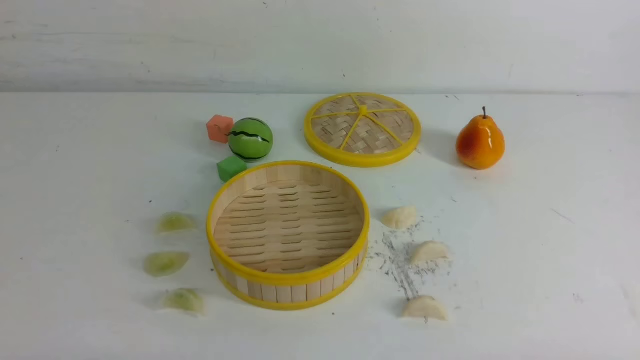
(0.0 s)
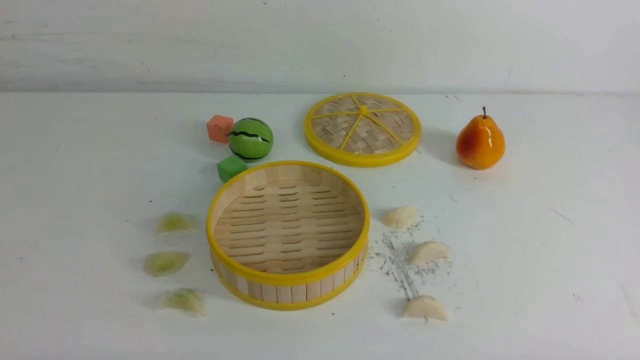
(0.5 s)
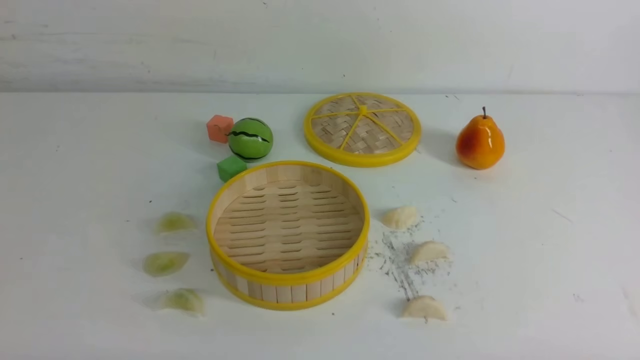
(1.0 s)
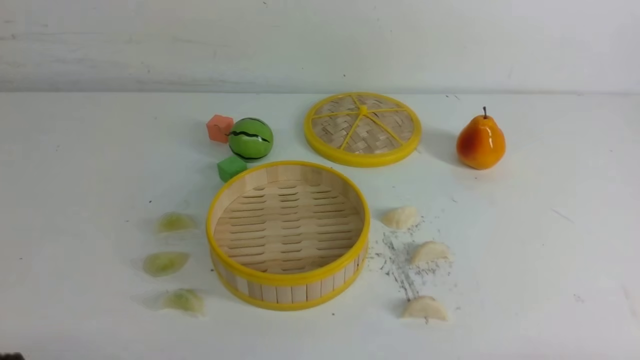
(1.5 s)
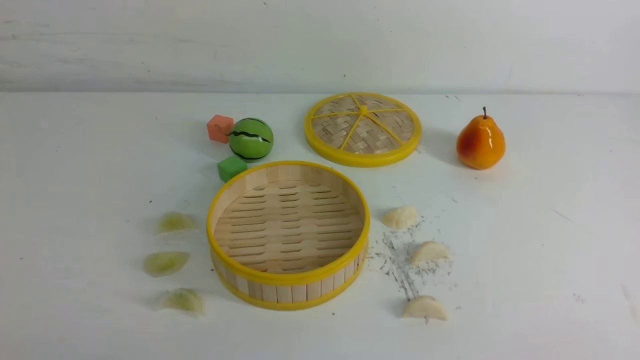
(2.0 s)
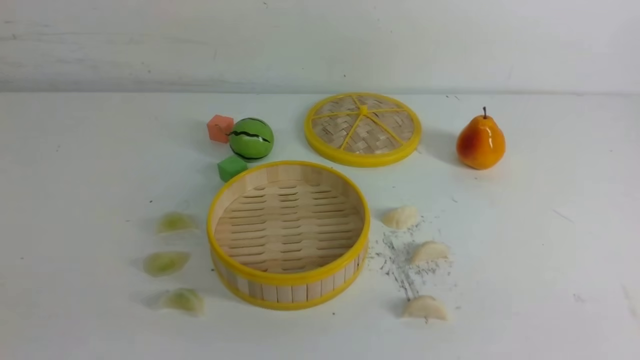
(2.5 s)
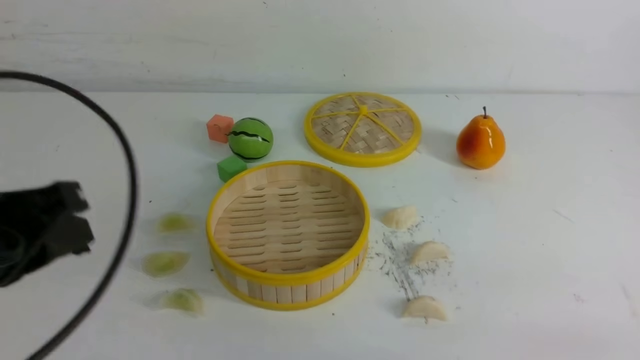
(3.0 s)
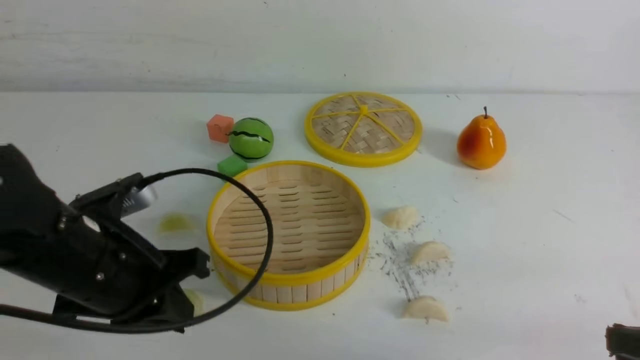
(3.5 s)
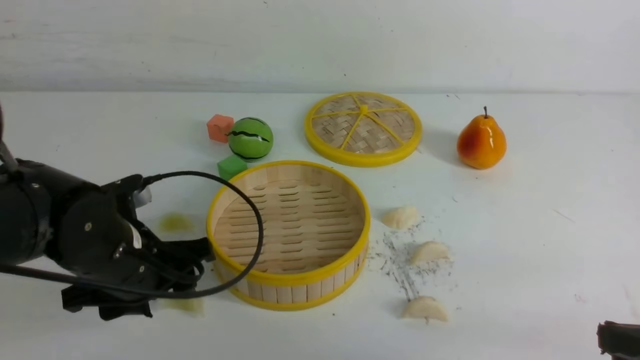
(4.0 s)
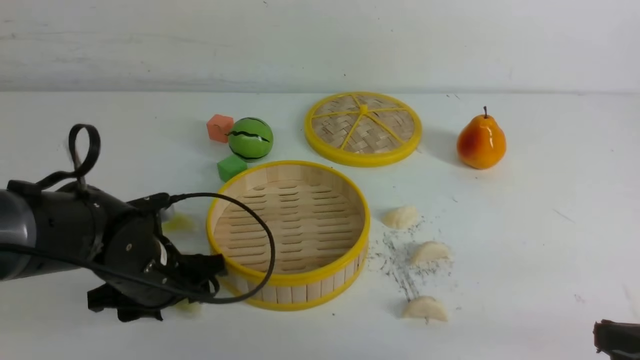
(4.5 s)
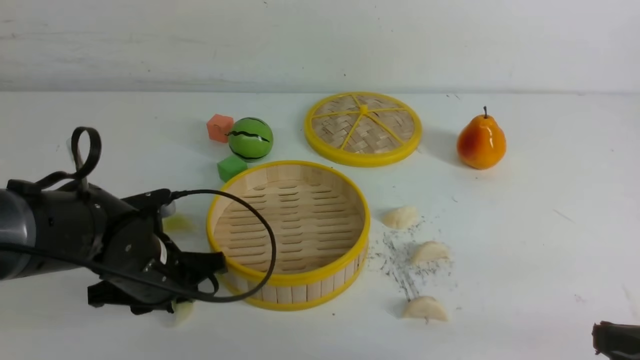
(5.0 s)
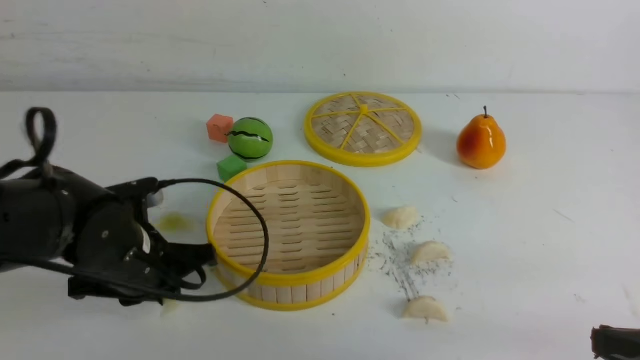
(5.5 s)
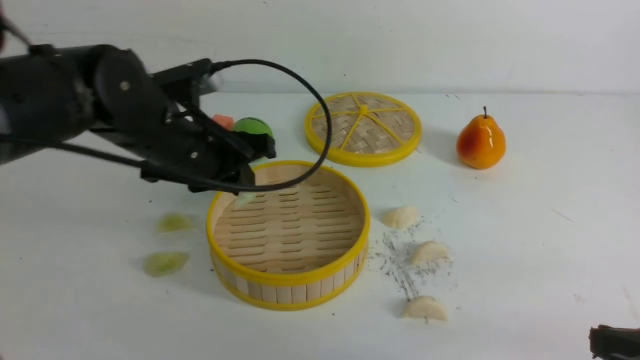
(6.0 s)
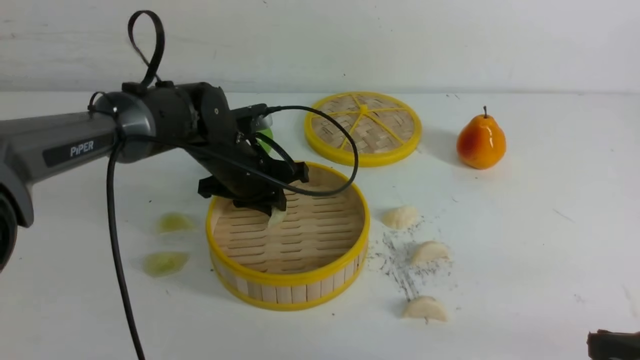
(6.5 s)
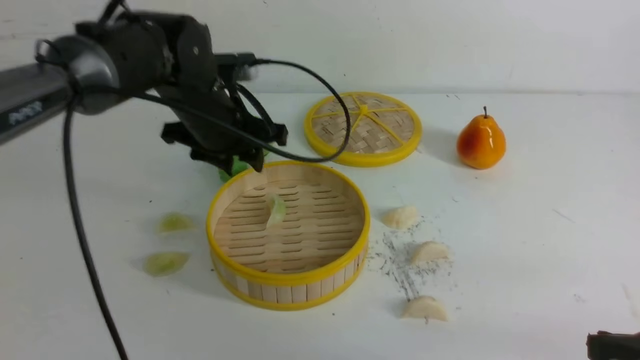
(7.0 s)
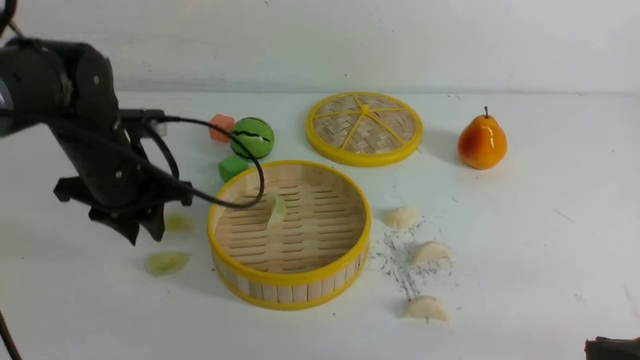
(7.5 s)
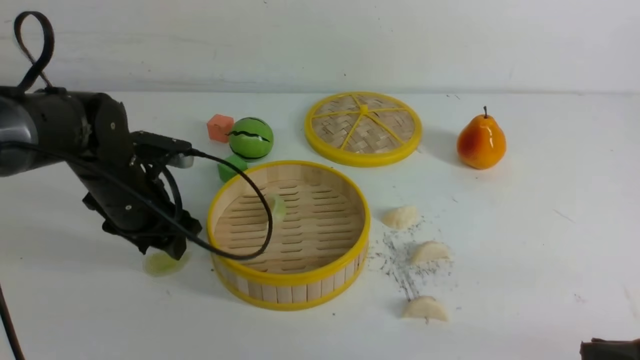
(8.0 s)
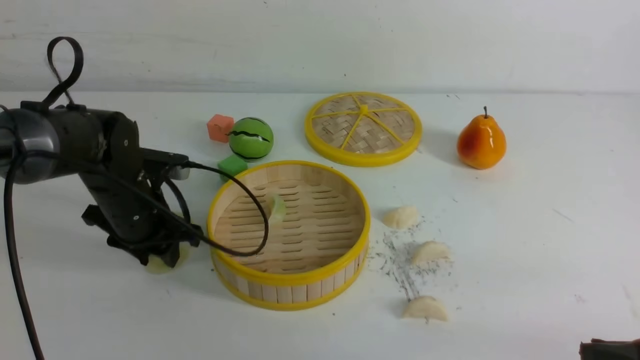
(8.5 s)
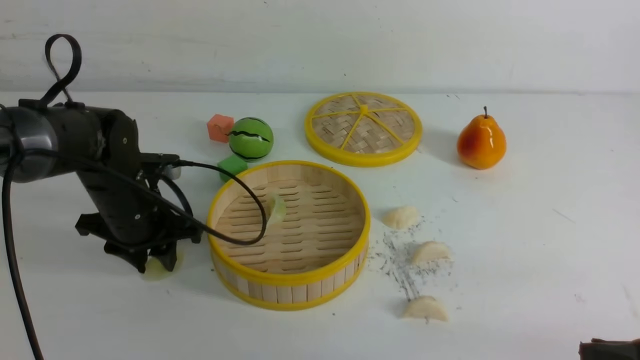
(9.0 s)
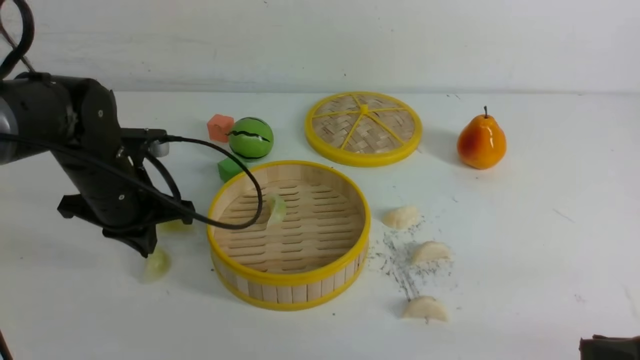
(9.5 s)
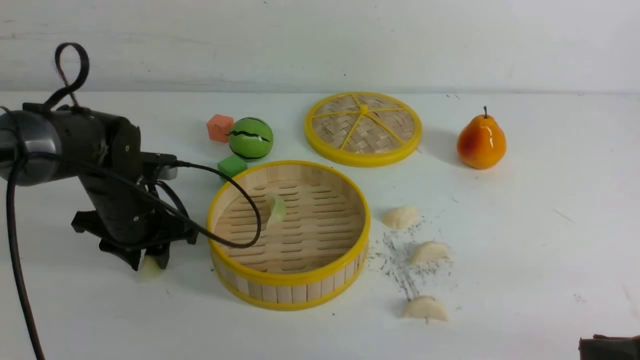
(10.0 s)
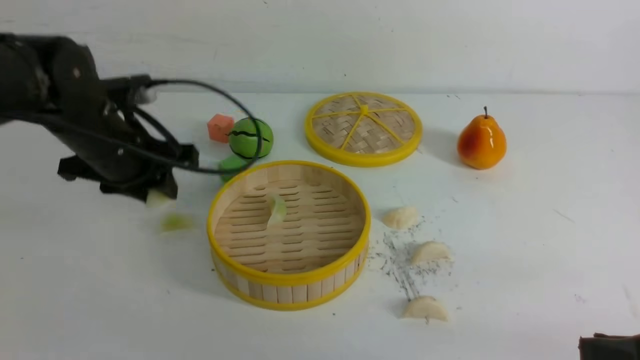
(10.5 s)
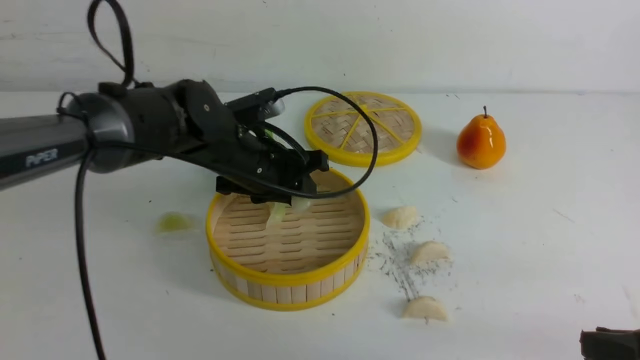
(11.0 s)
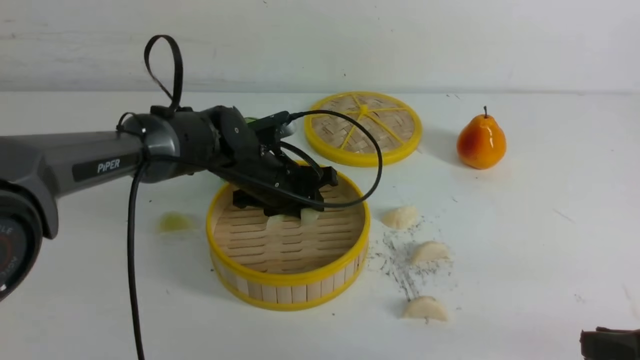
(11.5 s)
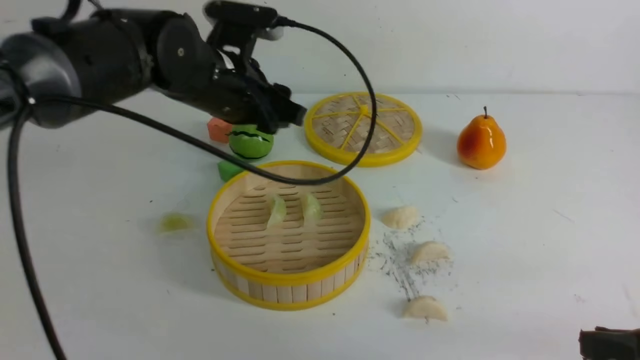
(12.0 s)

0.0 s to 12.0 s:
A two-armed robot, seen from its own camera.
Task of the whole recording: put the dumplings into the steamer on the white table.
Step, 0.0 to 5.0 s: use the left arm to grab a dumpling.
Step, 6.0 to 6.5 s: use the left arm to put the dumpling into the steamer.
Step, 7.5 to 10.0 s: use the left arm to grab a dumpling.
Step, 10.5 to 12.0 s: use the left arm to put the dumpling into the steamer.
2.0 to 4.0 s: The left gripper goes some 25 cm forward and to the right, and opens up. The right gripper goes roughly 10 cm forward.
4.0 to 6.0 s: The left gripper heads forward and upward, covering roughly 10 cm, and closes.
6.0 to 8.0 s: The left gripper goes some 10 cm to the left and downward, and opens up.
8.0 to 10.0 s: The left gripper closes, then reopens.
10.0 to 12.0 s: The left gripper moves upward and to the right, approximately 15 cm.

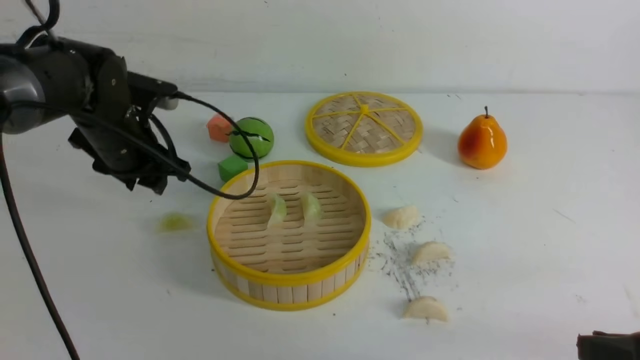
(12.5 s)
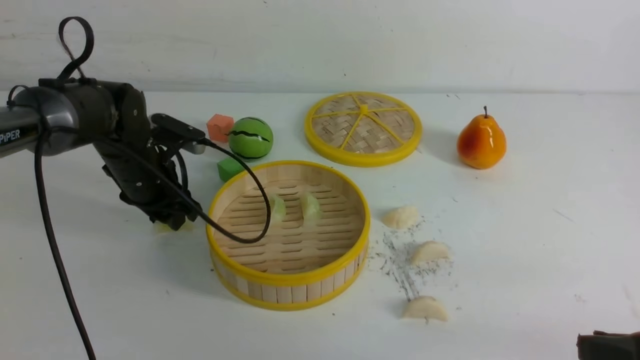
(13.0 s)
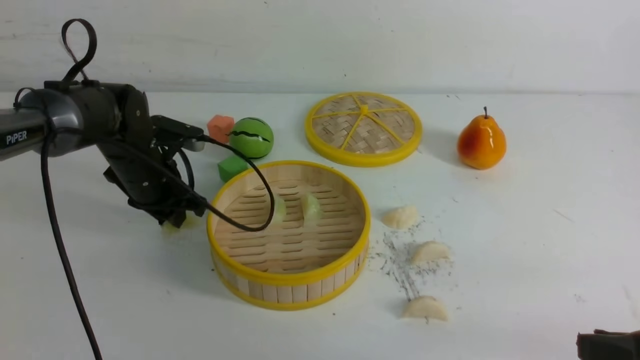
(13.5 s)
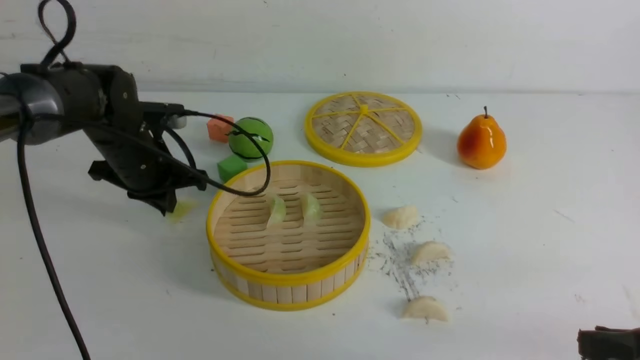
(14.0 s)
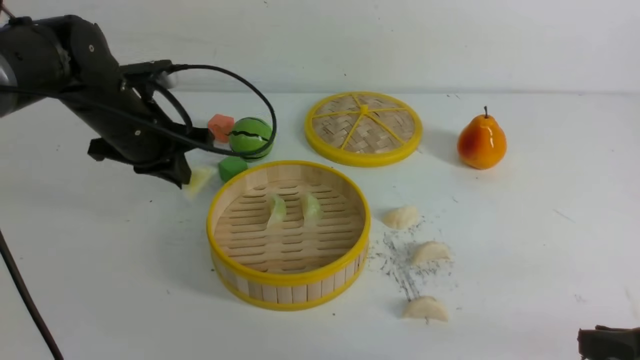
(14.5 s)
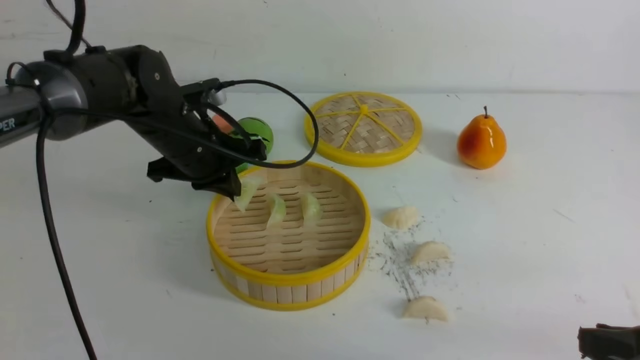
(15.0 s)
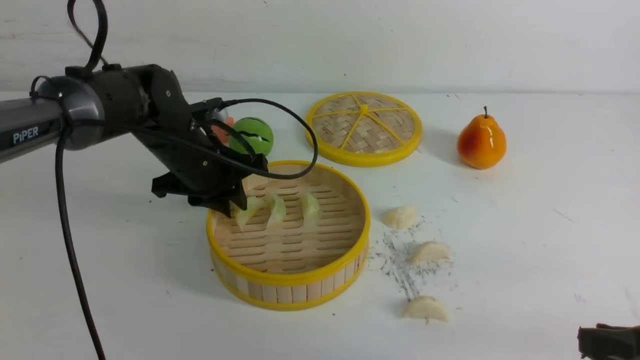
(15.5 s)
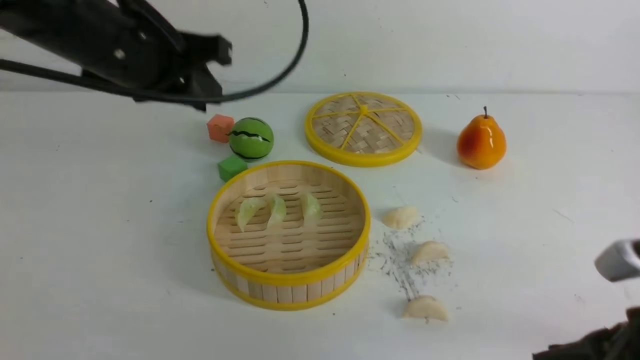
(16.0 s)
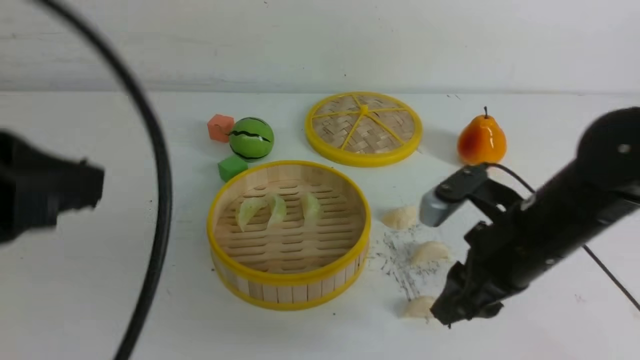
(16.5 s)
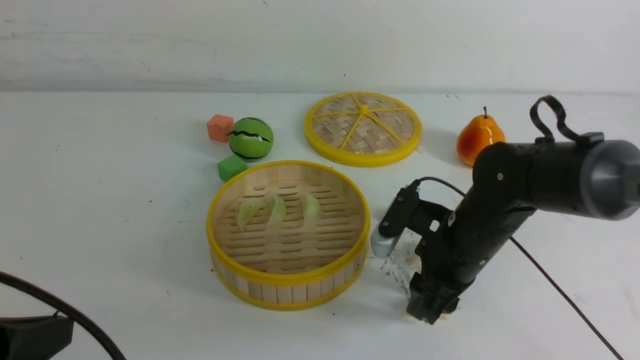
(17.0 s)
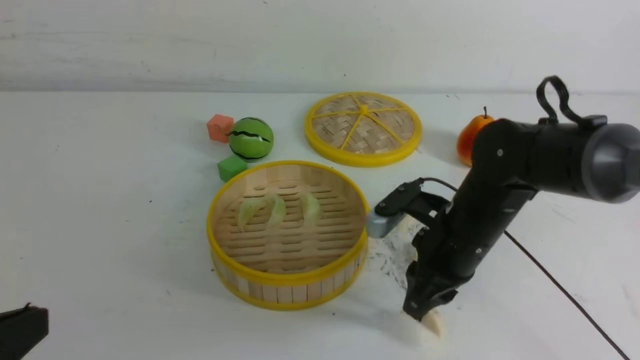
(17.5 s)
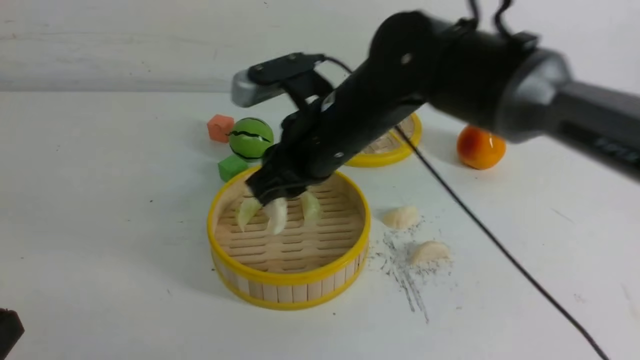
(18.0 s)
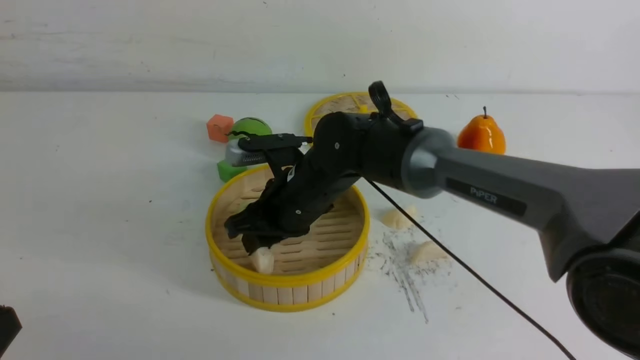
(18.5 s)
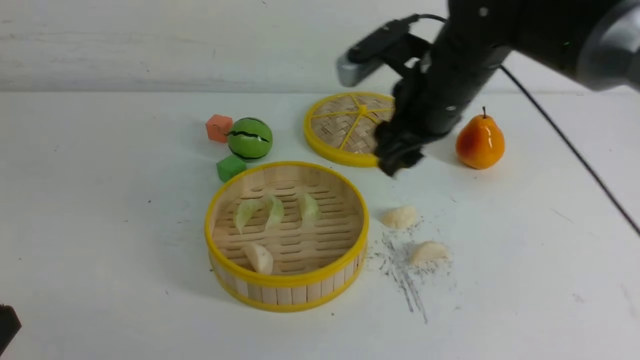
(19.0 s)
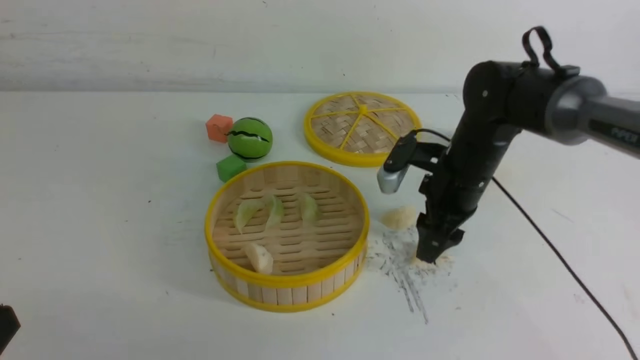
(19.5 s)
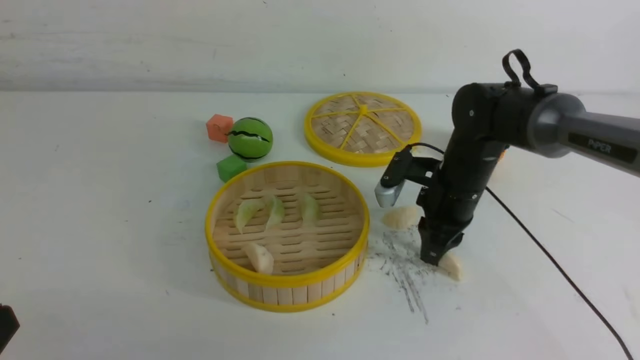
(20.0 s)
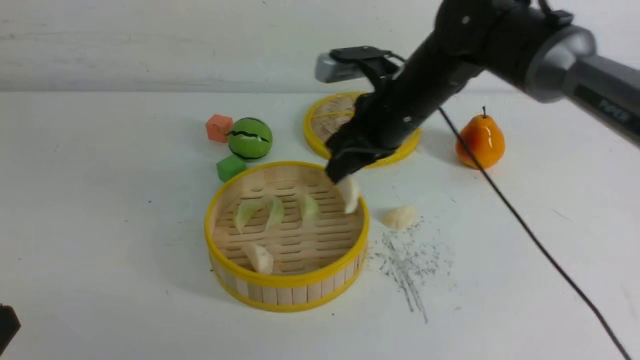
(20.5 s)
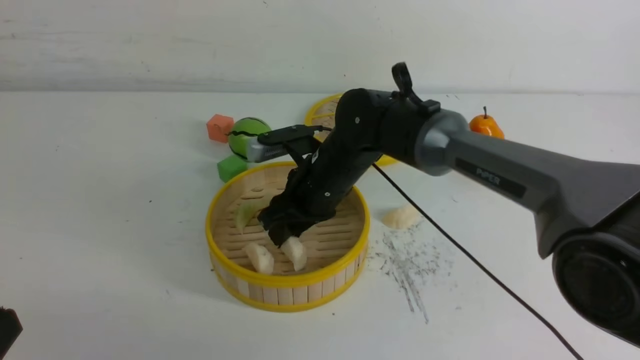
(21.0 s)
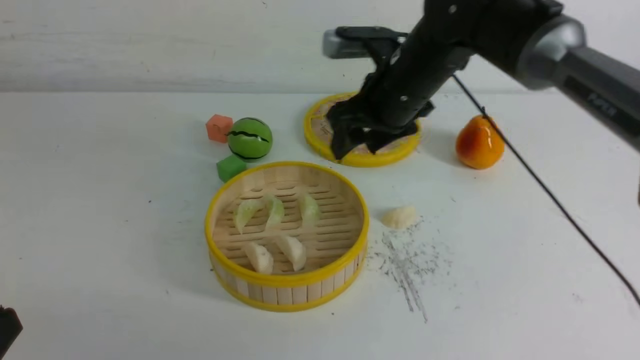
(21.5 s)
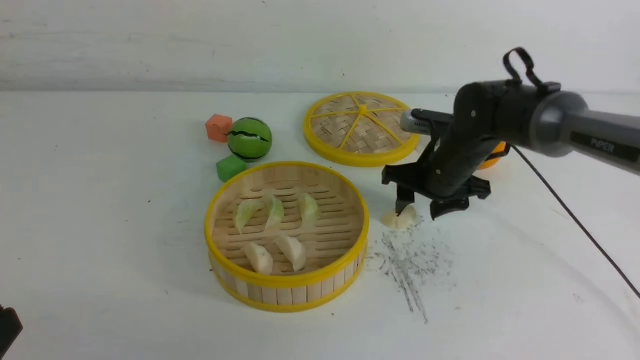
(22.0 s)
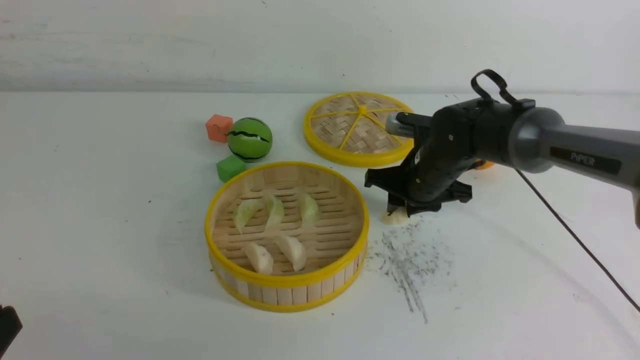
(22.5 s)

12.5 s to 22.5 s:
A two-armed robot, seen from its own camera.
Task of the whole recording: put the dumplings into the steamer on the white table.
Step, 12.5 to 13.5 s: use the left arm to grab a dumpling.
Step, 14.5 to 15.5 s: use the left arm to put the dumpling into the steamer.
Step, 16.0 to 17.5 s: use the right arm to grab a dumpling.
Step, 18.0 to 18.5 s: use the right arm to put the dumpling into the steamer.
Step, 19.0 to 20.0 s: use the right arm to grab a dumpling.
Step, 20.5 to 21.0 s: use the right arm to put the dumpling into the steamer.
12.5 to 14.5 s: The left gripper moves some 5 cm downward and comes back, and closes its fingers.
14.5 to 16.5 s: The right gripper heads forward and to the left, covering roughly 15 cm. Meanwhile the left gripper moves backward and upward, about 30 cm, and opens, then closes again.
16.5 to 18.5 s: The left gripper goes some 15 cm downward and backward, while the right gripper travels to the left and forward by roughly 20 cm.
18.5 to 20.5 s: The right gripper shifts roughly 10 cm to the right, and opens, then closes once more.
20.5 to 22.5 s: The right gripper moves downward and to the right, some 10 cm, and opens, then closes once more.
